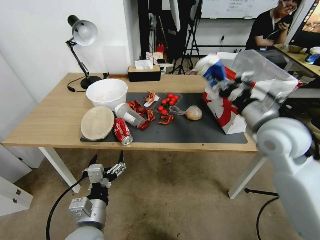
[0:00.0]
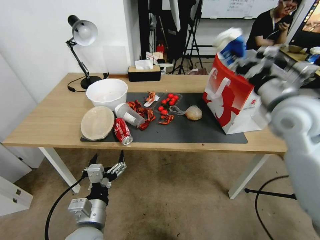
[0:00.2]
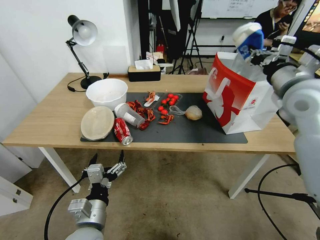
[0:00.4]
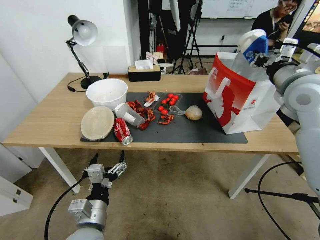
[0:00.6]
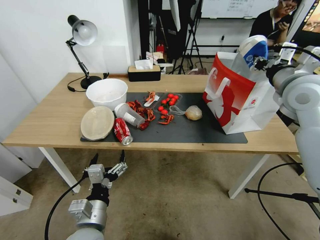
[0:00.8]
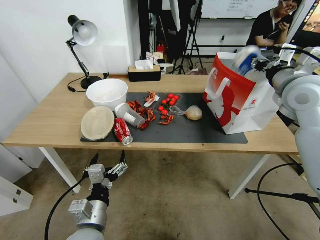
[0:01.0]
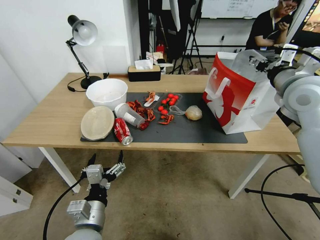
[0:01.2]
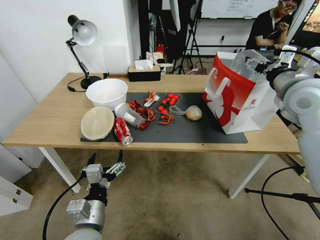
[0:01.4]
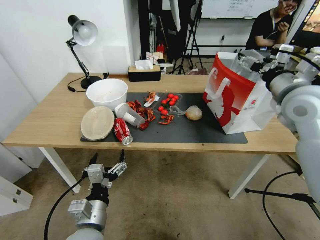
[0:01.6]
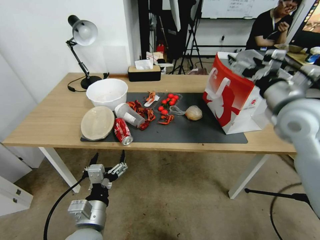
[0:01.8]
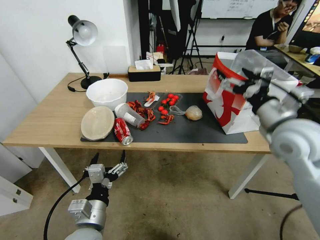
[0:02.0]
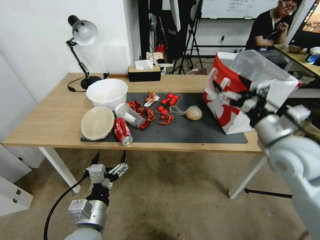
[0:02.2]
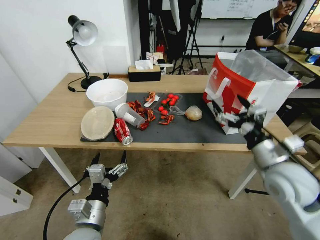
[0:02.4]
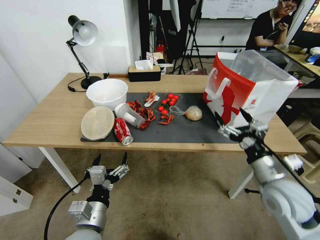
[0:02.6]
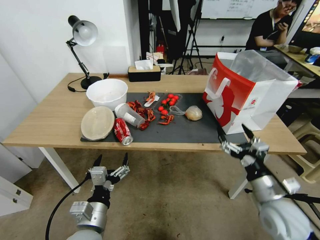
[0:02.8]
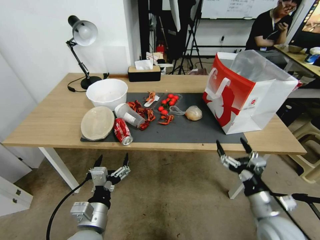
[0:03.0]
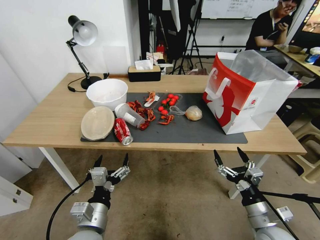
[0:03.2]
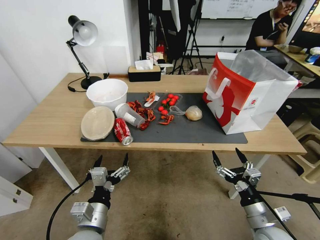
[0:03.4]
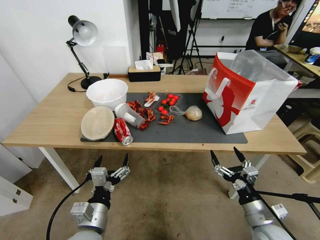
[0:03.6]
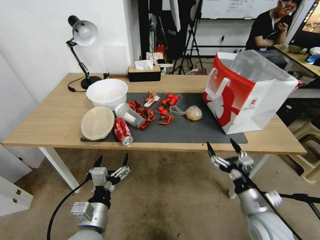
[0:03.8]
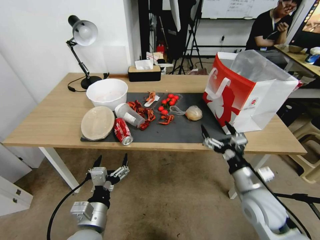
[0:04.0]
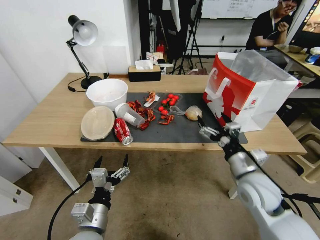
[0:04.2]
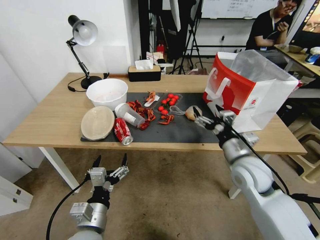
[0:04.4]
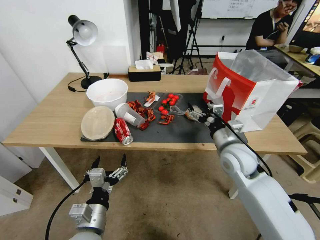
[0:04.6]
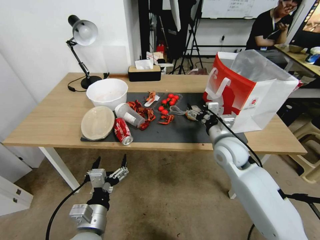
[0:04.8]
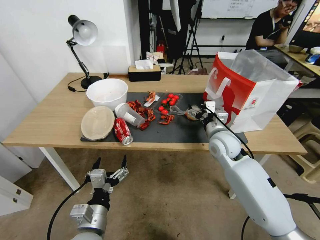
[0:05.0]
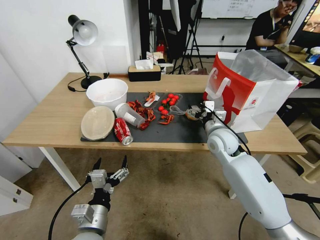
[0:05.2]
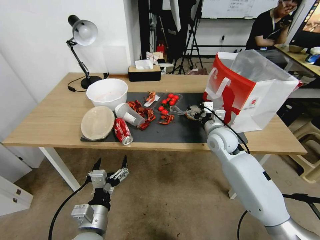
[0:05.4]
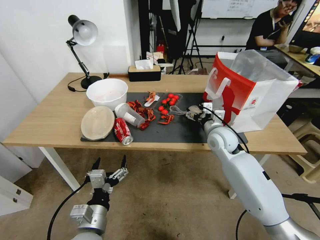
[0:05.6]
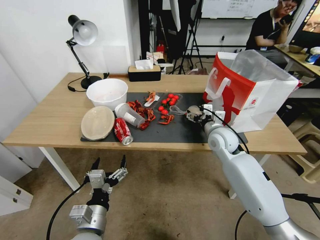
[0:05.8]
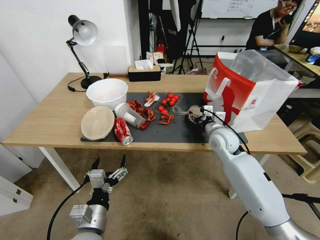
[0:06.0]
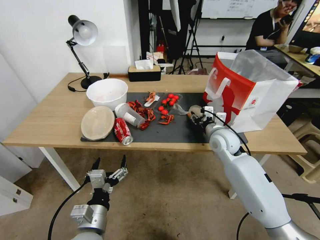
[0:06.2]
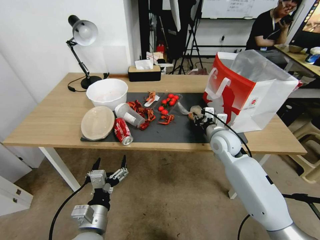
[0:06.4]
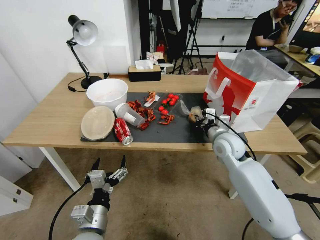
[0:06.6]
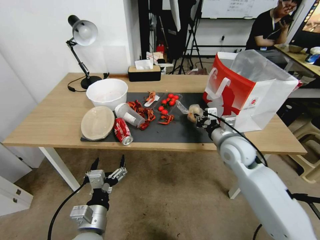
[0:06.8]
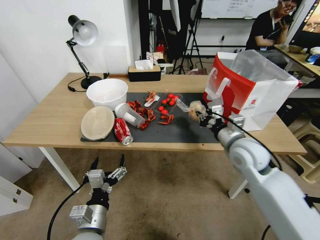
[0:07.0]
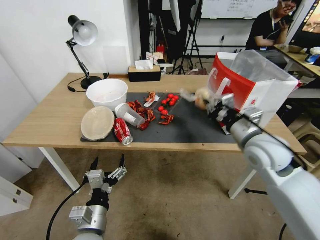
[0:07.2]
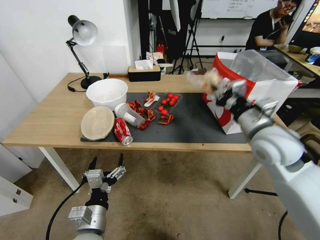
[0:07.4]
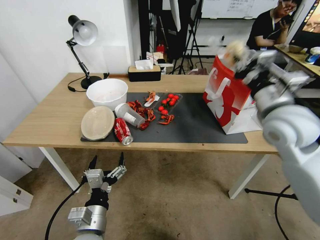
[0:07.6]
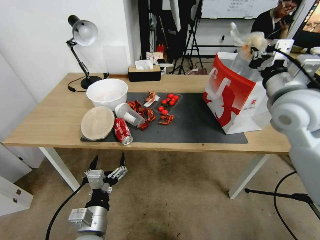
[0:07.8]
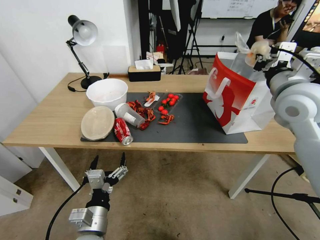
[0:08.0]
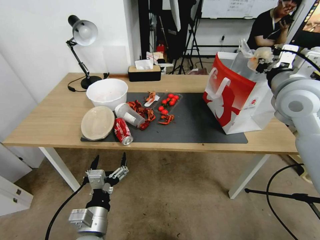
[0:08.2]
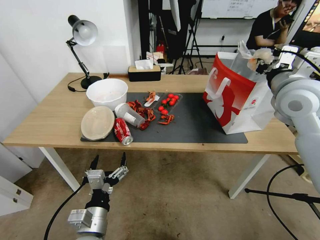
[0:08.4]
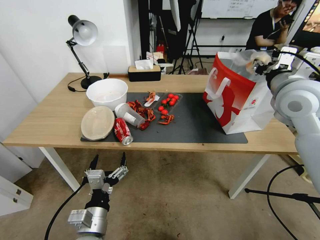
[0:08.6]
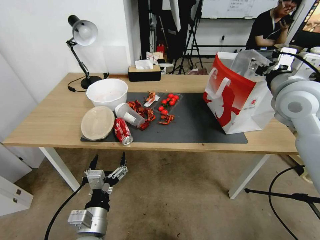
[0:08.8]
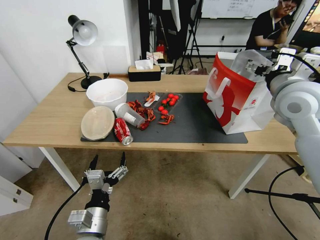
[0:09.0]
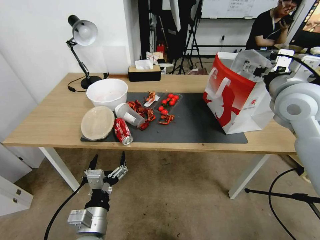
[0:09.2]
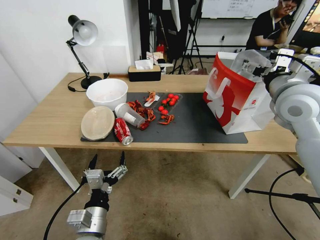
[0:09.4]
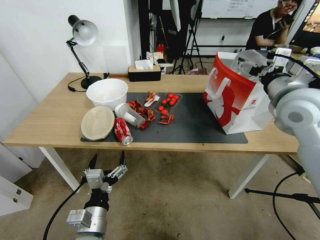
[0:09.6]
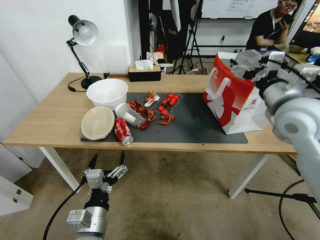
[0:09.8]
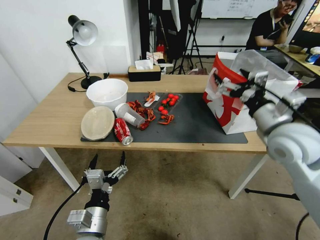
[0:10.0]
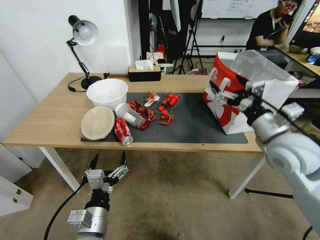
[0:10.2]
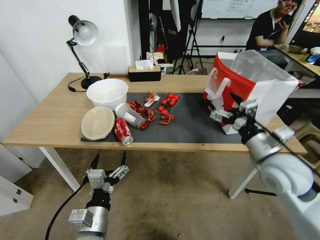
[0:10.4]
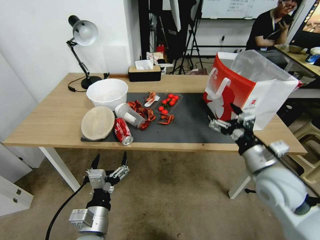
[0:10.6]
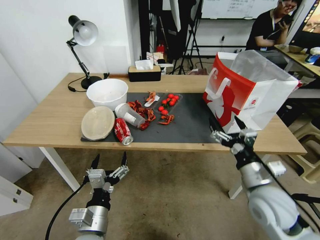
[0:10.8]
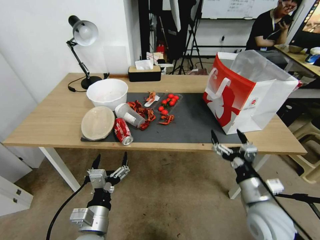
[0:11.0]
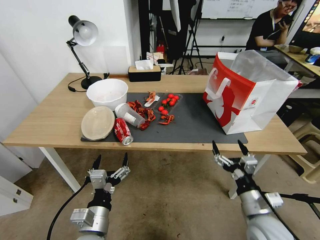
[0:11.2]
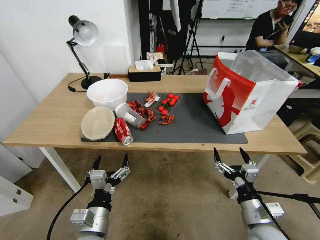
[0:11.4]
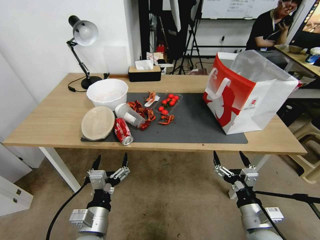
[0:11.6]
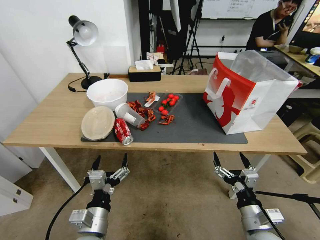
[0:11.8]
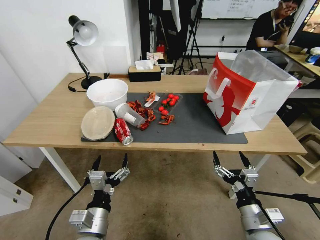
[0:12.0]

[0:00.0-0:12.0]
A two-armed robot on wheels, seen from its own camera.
0:00.0 to 0:01.6: The right gripper shifts roughly 10 cm upward and to the right, and opens its fingers.
0:01.6 to 0:03.0: The right gripper goes some 35 cm downward and backward.
0:03.0 to 0:04.4: The right gripper shifts some 20 cm forward, upward and to the left.
0:04.4 to 0:06.0: The right gripper moves forward, about 10 cm.
0:06.0 to 0:07.6: The right gripper shifts roughly 20 cm upward and backward, and closes.
0:07.6 to 0:09.0: The right gripper ends up about 5 cm from where it was, and opens its fingers.
0:09.0 to 0:10.4: The right gripper heads downward and backward, covering some 15 cm.
0:10.4 to 0:12.0: The right gripper heads downward and backward, covering some 20 cm.

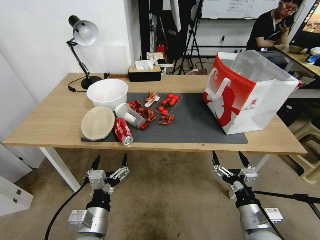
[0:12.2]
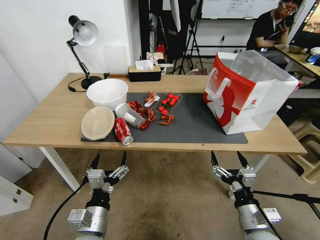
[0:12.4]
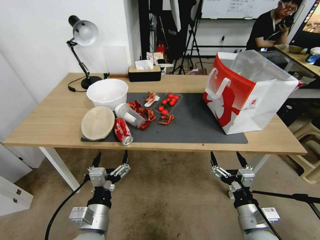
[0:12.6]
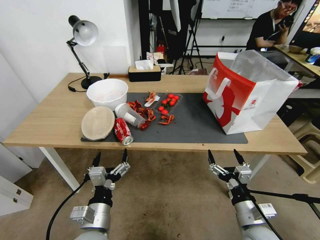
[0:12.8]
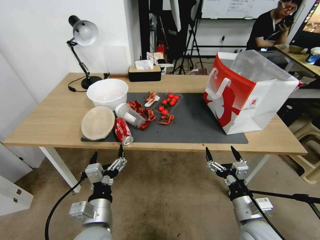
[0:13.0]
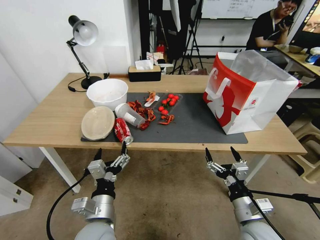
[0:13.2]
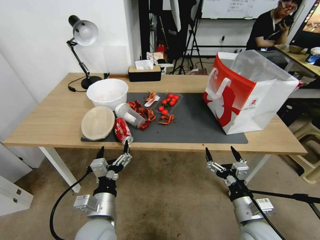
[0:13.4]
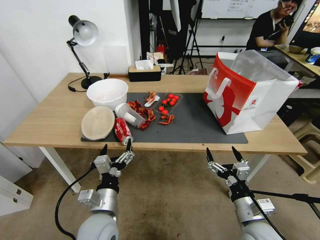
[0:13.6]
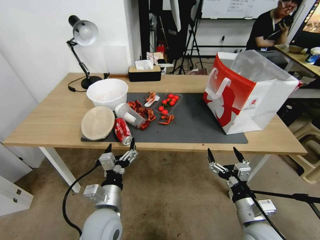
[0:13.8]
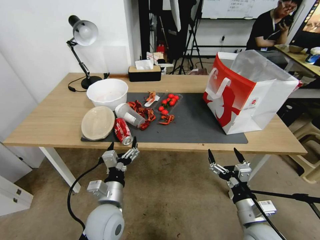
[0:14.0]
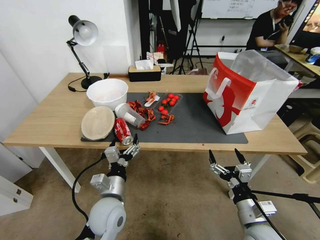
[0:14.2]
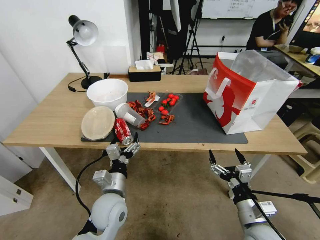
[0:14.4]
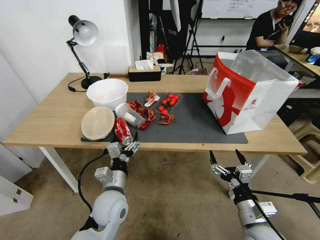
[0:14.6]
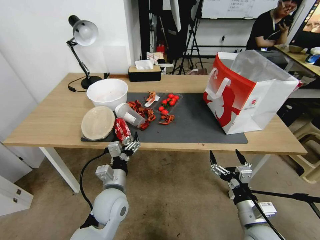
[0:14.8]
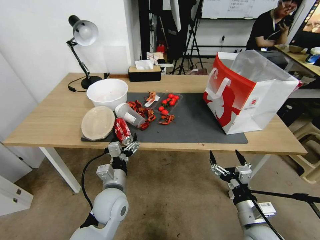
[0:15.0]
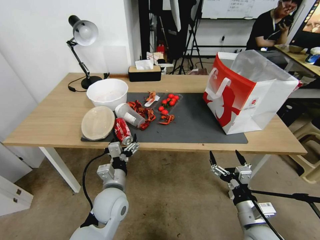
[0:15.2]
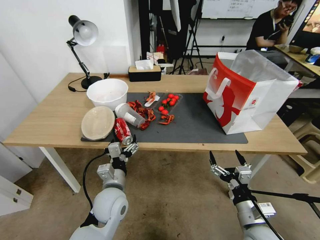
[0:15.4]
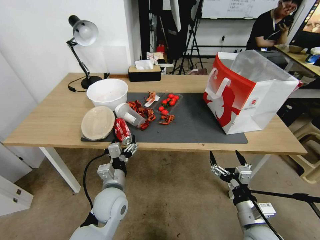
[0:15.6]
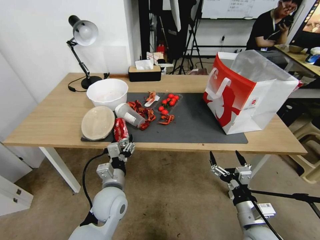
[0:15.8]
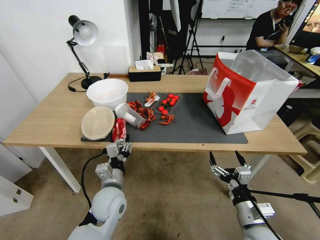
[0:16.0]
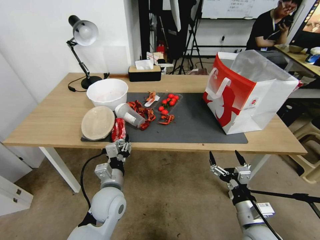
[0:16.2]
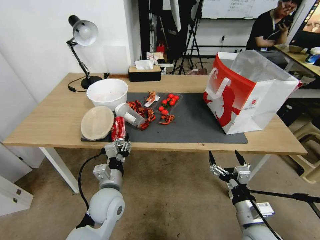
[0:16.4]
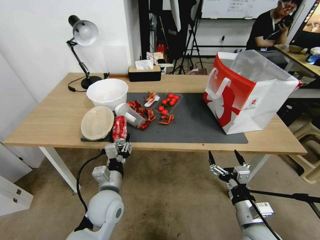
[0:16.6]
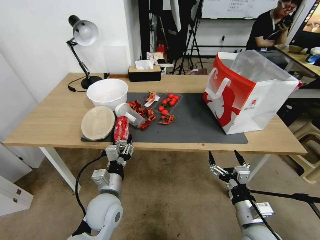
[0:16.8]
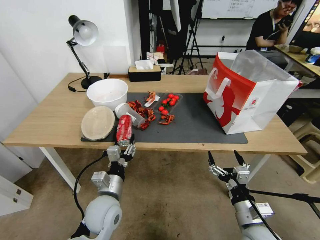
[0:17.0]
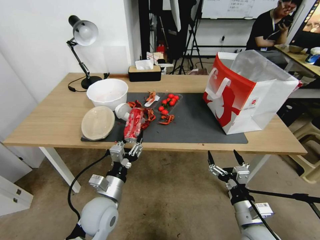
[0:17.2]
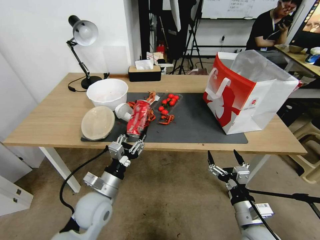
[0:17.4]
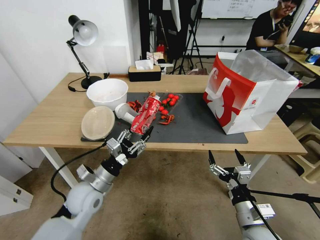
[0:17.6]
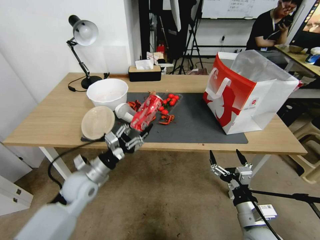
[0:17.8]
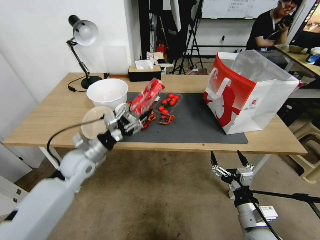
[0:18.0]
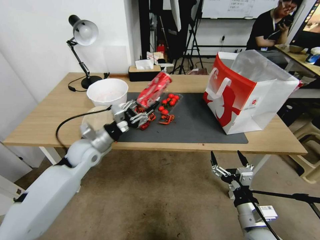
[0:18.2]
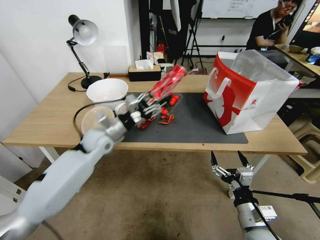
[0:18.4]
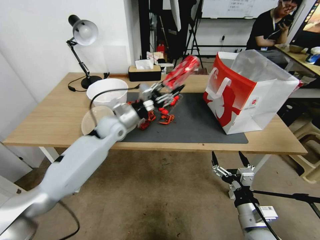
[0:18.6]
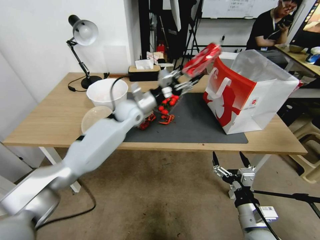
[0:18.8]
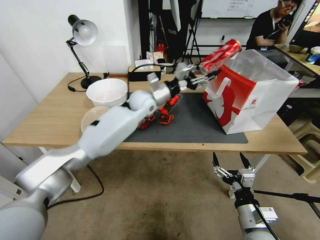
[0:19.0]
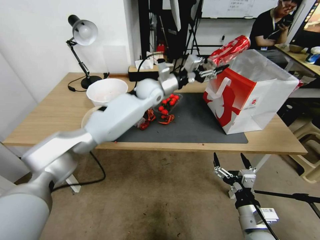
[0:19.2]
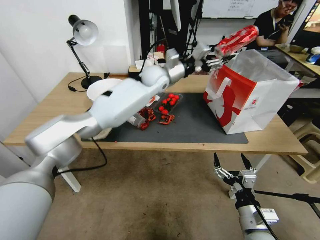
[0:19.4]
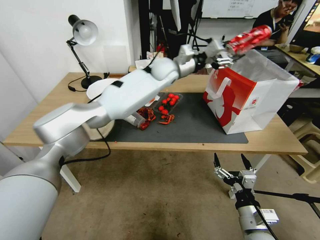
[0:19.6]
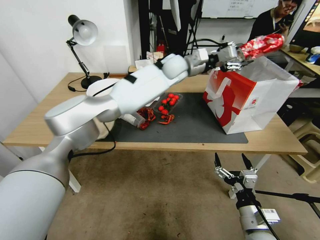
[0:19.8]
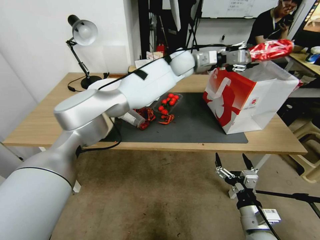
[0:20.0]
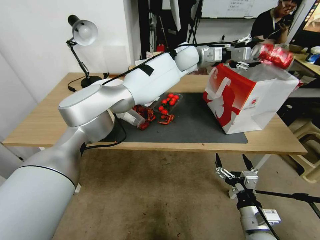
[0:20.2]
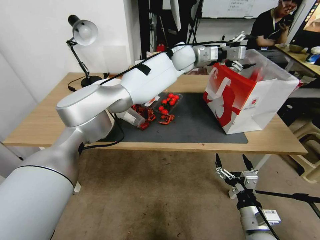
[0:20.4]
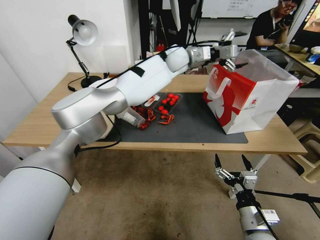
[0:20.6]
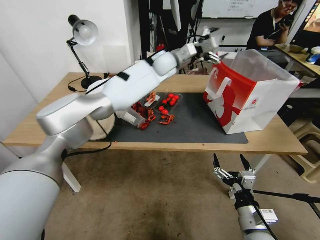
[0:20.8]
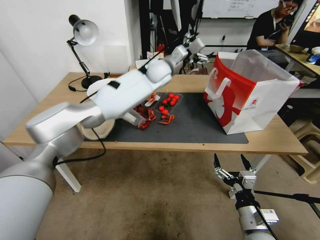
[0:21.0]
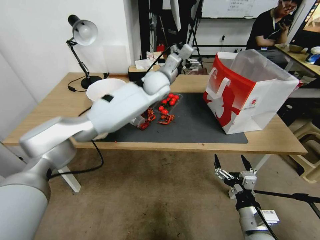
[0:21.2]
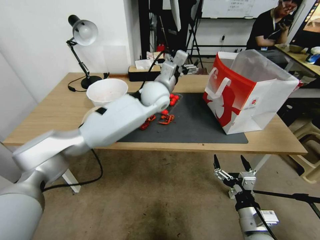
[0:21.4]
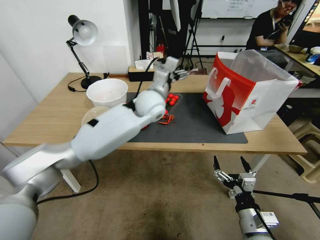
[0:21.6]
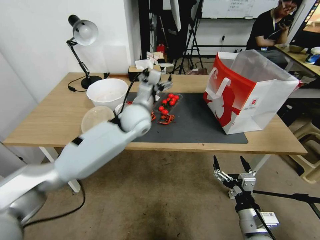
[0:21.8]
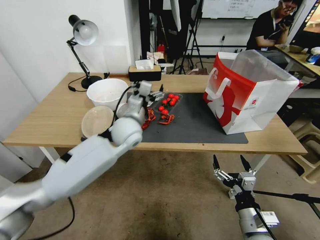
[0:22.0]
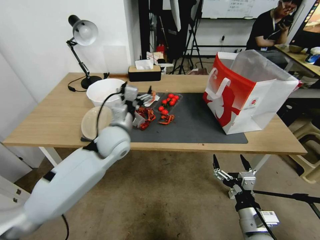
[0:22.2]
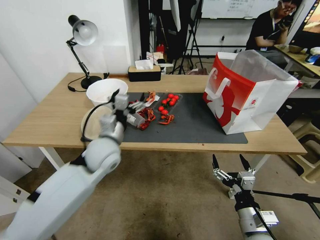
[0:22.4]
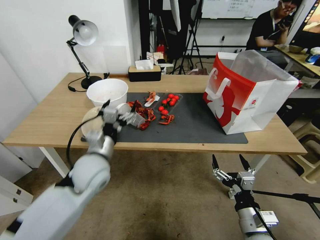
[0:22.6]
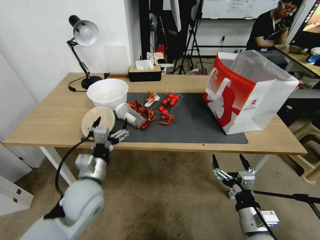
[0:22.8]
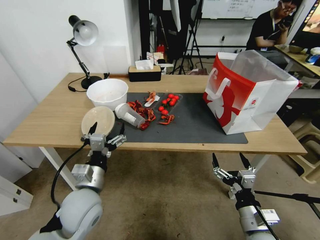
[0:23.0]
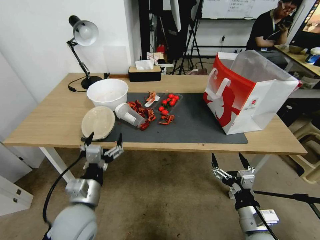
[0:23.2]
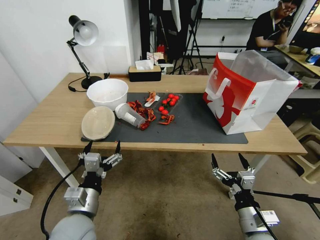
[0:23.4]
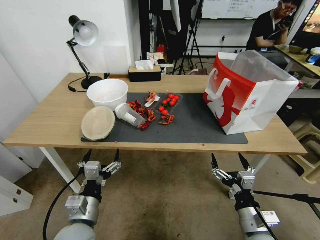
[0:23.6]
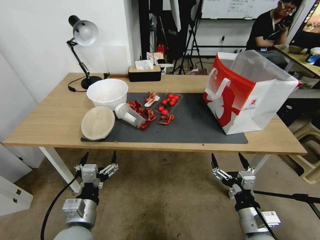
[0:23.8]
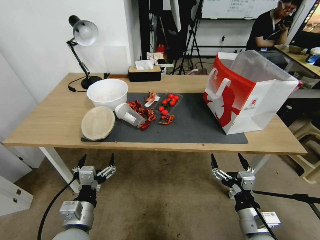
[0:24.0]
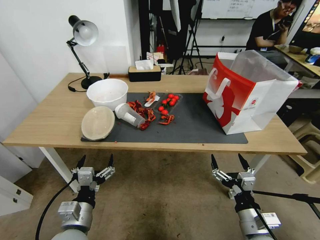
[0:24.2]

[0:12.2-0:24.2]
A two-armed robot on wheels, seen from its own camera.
0:12.2 to 0:13.8: The left gripper is displaced forward by about 5 cm.
0:13.8 to 0:15.2: The left gripper is displaced forward by some 5 cm.
0:15.2 to 0:16.6: The left gripper closes its fingers.
0:16.6 to 0:18.2: The left gripper goes about 15 cm forward, to the left and upward.
0:18.2 to 0:19.8: The left gripper goes about 40 cm to the right, forward and upward.
0:19.8 to 0:21.2: The left gripper goes approximately 5 cm to the left, and opens.
0:21.2 to 0:22.6: The left gripper heads backward, to the left and downward, covering some 35 cm.
0:22.6 to 0:24.2: The left gripper shifts approximately 15 cm backward and downward.
